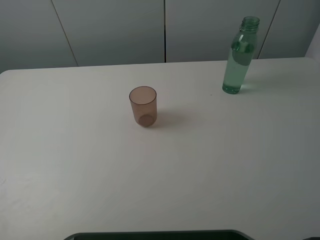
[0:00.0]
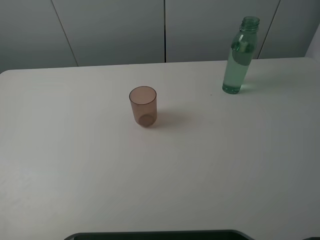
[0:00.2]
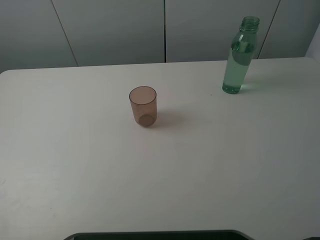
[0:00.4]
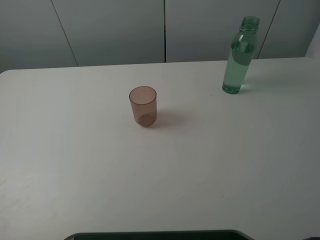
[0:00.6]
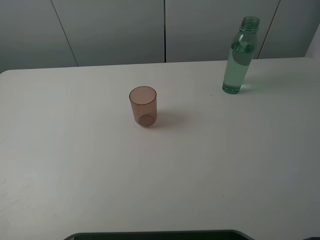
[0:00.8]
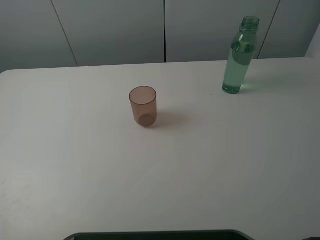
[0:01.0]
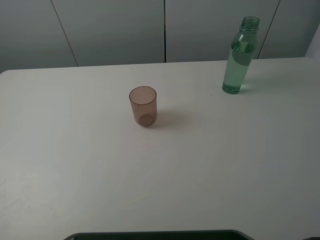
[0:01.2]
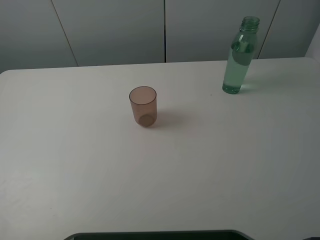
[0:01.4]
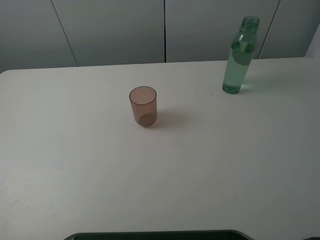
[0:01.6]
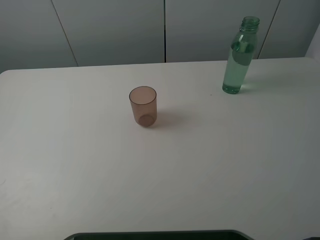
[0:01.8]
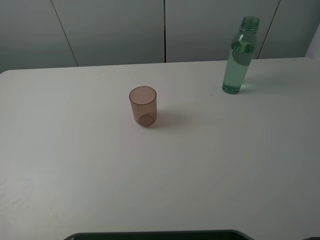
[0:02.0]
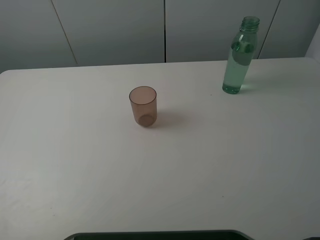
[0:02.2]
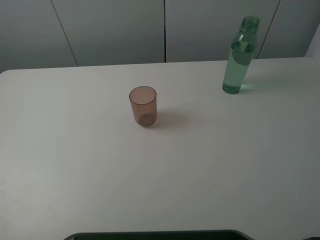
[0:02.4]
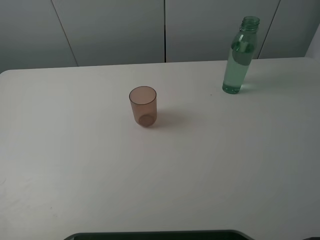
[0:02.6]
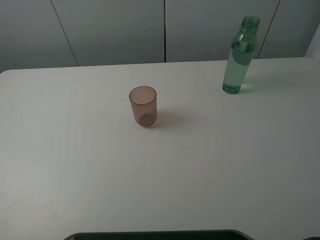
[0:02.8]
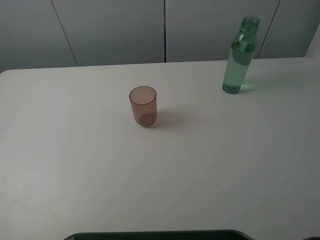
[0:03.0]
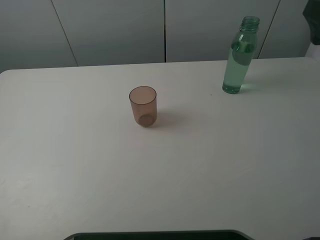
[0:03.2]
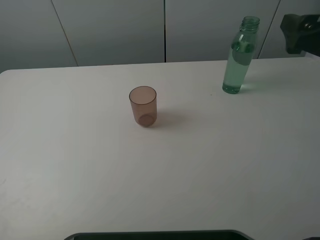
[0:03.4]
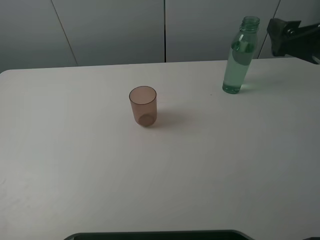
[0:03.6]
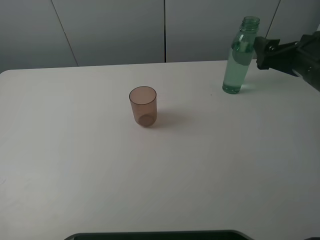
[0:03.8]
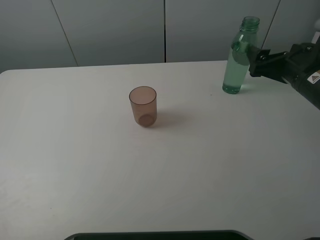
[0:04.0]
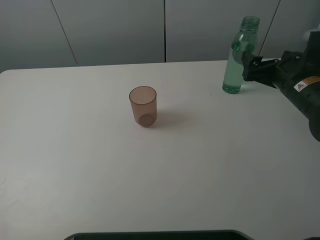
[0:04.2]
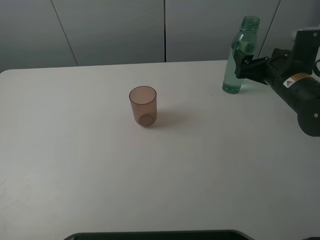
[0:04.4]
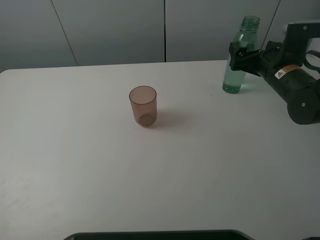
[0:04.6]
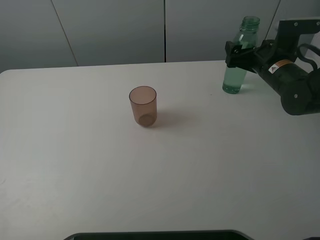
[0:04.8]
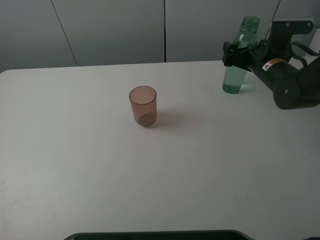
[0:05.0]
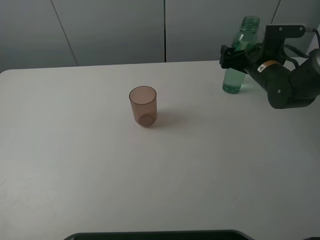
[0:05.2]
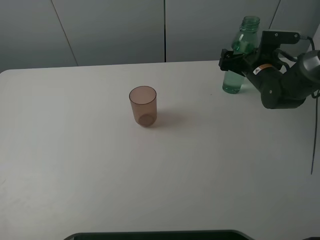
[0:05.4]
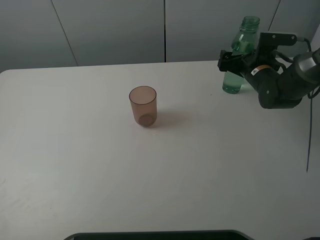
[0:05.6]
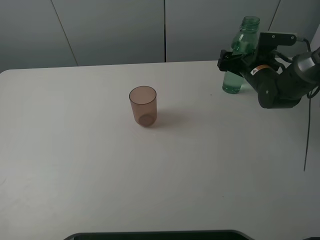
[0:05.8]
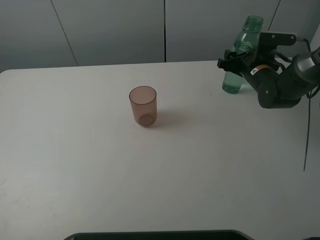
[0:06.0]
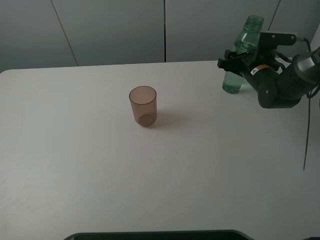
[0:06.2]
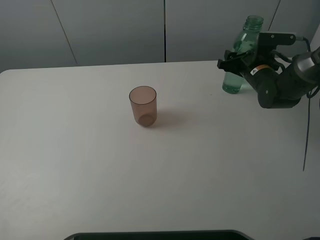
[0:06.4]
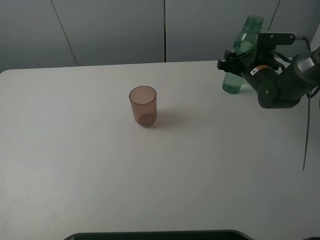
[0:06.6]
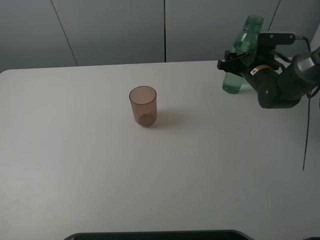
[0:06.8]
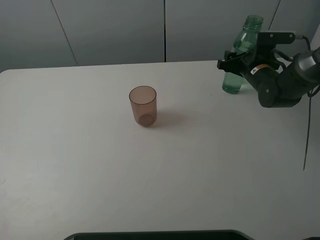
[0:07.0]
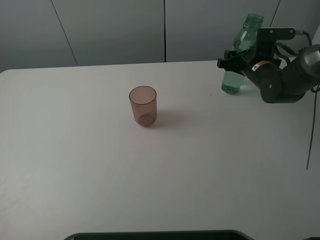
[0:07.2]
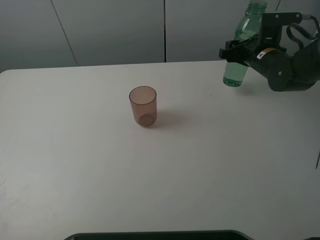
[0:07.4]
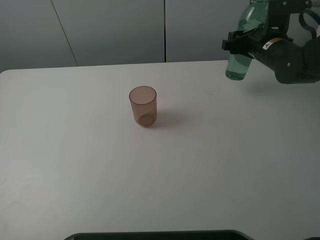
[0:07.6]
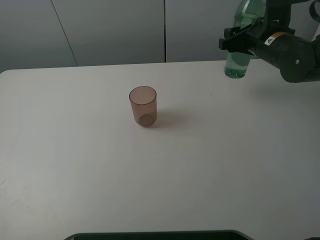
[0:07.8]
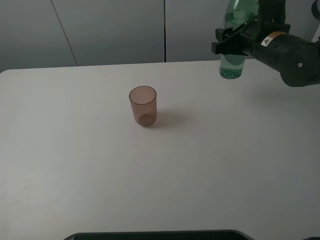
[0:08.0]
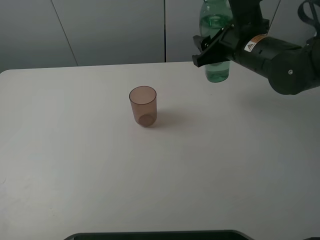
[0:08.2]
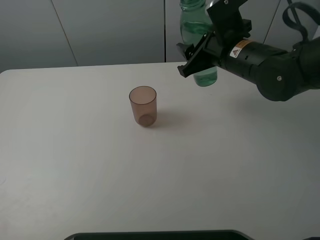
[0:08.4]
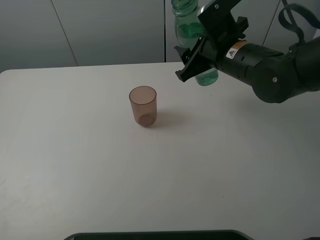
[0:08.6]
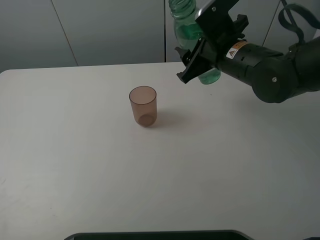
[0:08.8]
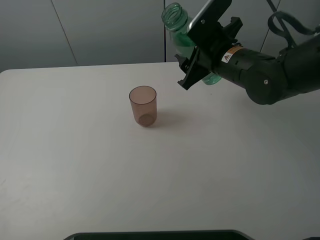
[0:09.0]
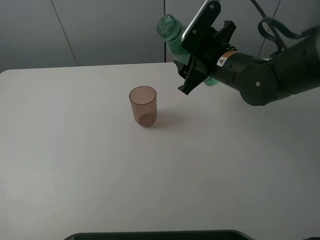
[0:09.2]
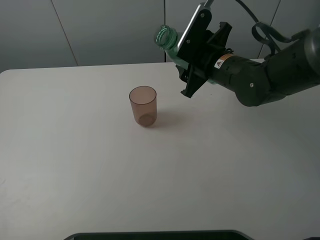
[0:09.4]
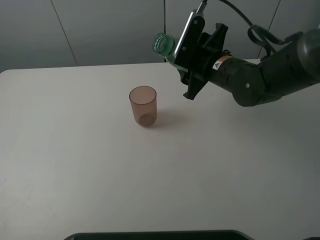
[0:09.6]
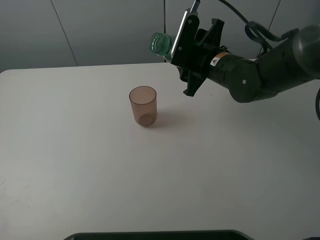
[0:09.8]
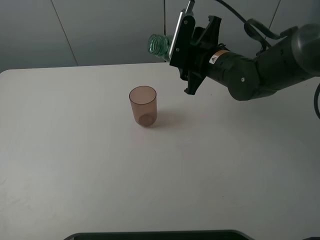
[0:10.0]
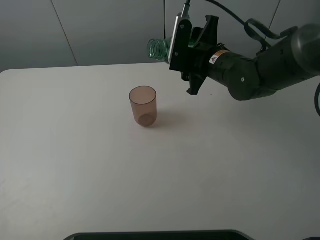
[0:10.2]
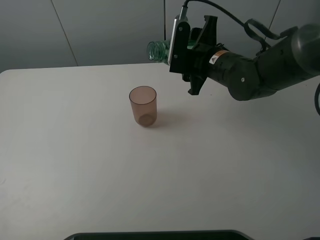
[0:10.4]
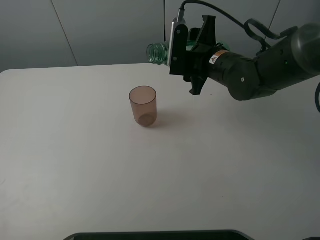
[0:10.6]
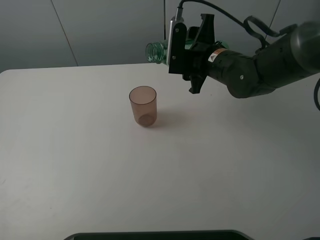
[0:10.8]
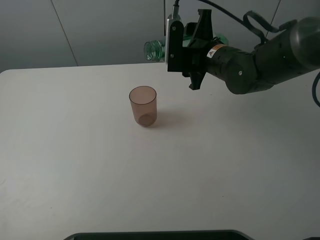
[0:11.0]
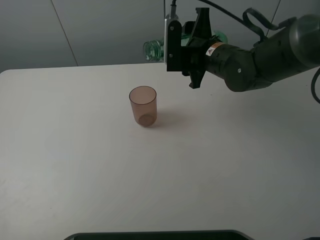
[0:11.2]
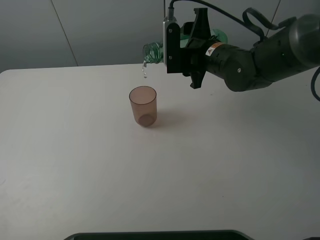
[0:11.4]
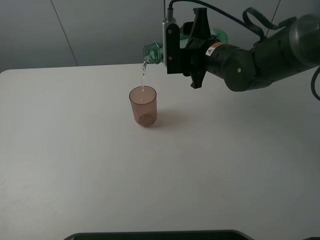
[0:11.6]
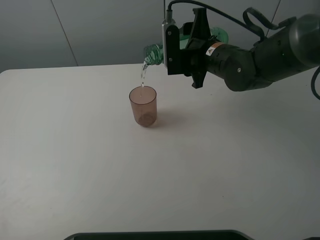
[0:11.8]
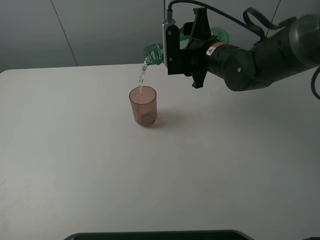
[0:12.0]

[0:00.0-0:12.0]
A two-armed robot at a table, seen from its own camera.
Task of the whole recording: pick up the bottle filled with water and pour it into the pink cup.
Step, 0:00.0 to 0:06.4: Grasp the green bottle with the right gripper.
0:03.0 to 0:04.4: The right gripper moves downward and forward, roughly 20 cm.
0:04.4 to 0:06.0: The right gripper moves forward and downward, about 10 cm, and closes up.
0:06.0 to 0:07.6: The right gripper shifts about 5 cm upward, and closes its fingers.
0:07.6 to 0:09.0: The right gripper is displaced to the left and backward by about 15 cm.
0:10.4 to 0:12.0: There are only small adjustments of the grippers.

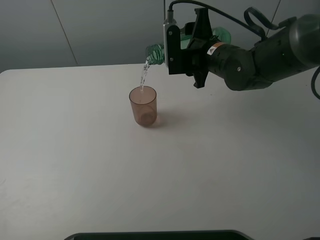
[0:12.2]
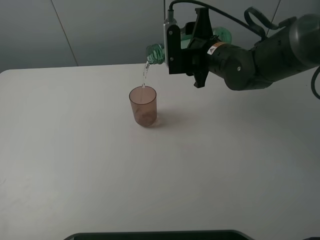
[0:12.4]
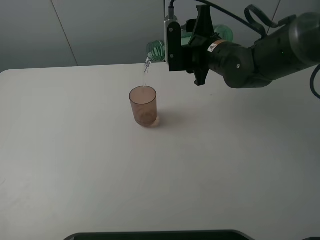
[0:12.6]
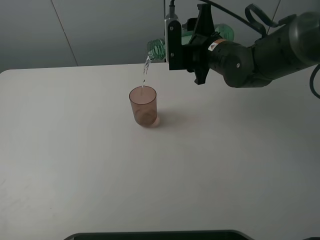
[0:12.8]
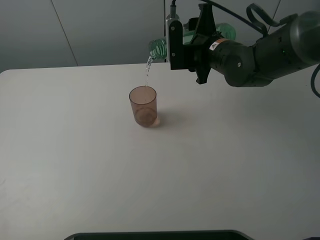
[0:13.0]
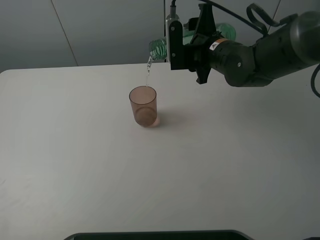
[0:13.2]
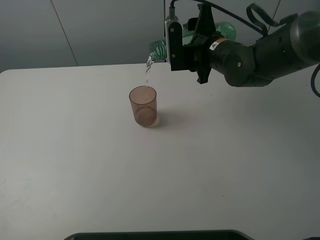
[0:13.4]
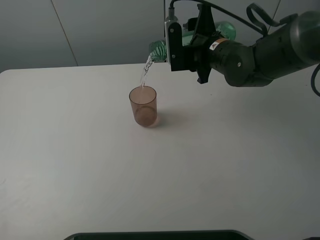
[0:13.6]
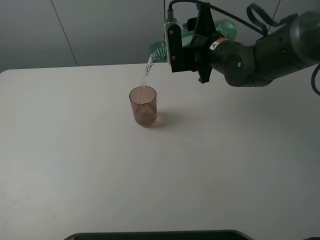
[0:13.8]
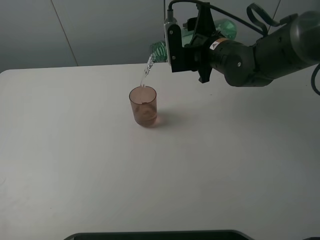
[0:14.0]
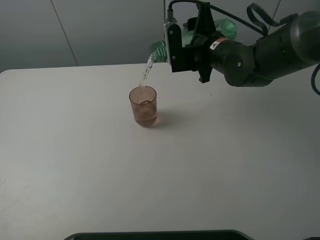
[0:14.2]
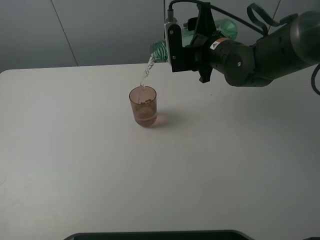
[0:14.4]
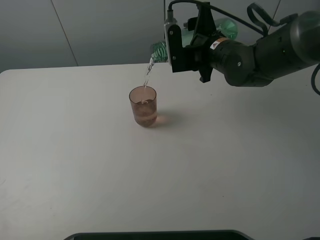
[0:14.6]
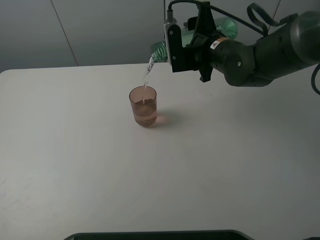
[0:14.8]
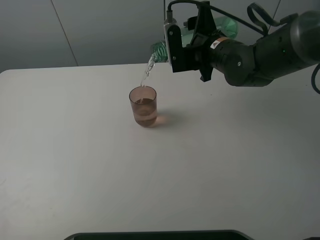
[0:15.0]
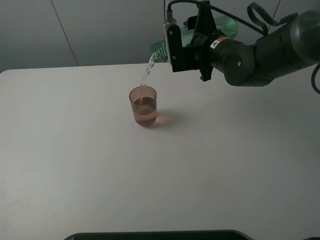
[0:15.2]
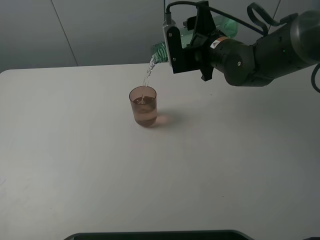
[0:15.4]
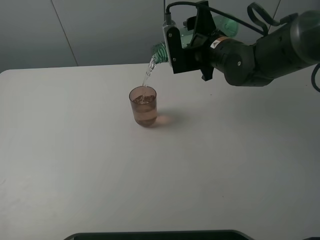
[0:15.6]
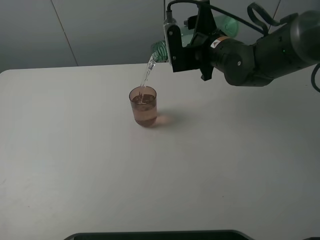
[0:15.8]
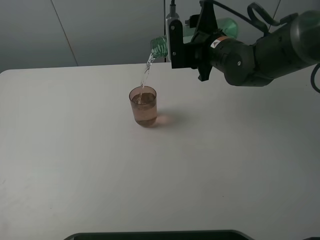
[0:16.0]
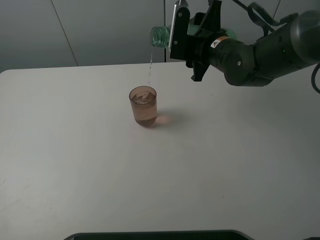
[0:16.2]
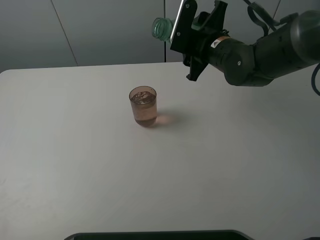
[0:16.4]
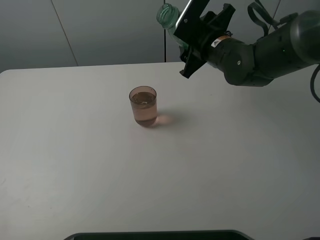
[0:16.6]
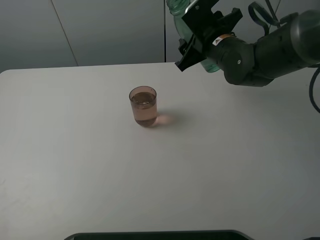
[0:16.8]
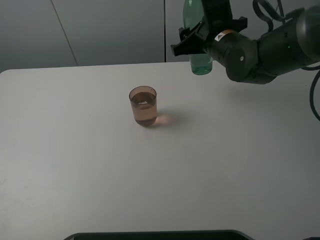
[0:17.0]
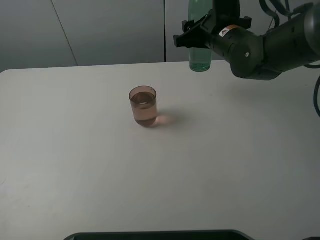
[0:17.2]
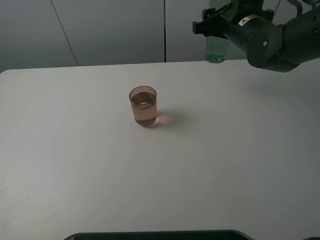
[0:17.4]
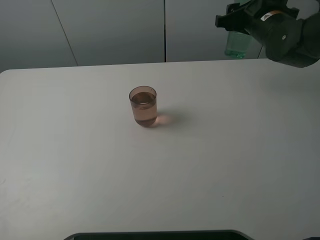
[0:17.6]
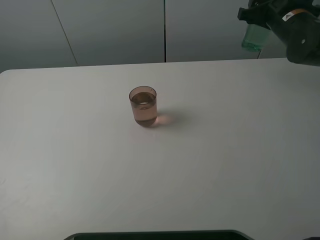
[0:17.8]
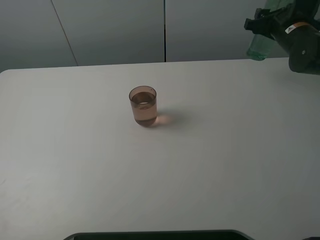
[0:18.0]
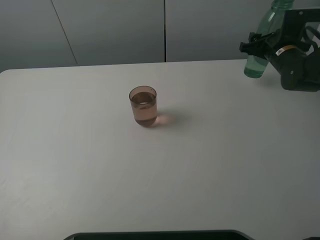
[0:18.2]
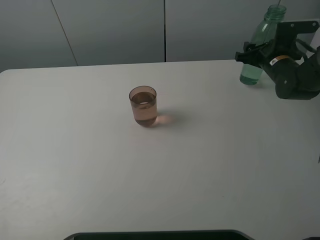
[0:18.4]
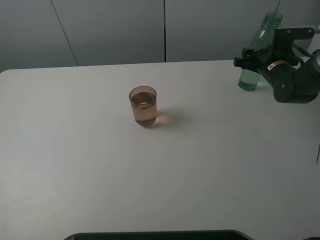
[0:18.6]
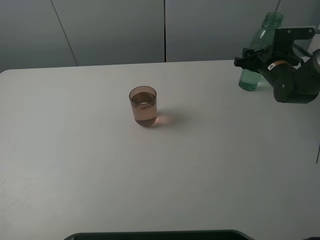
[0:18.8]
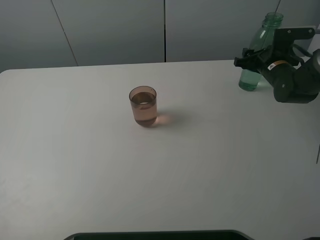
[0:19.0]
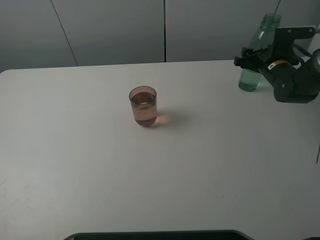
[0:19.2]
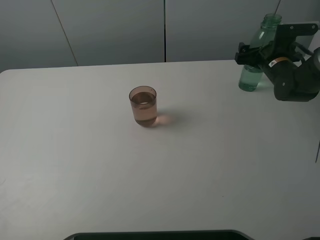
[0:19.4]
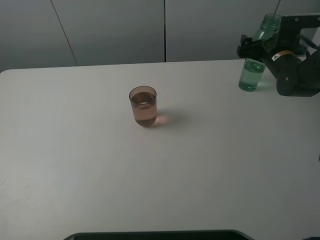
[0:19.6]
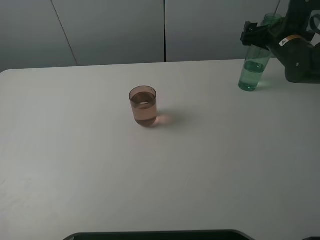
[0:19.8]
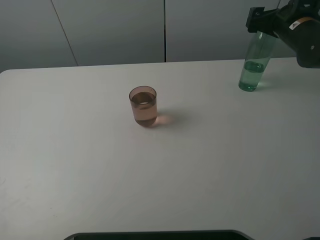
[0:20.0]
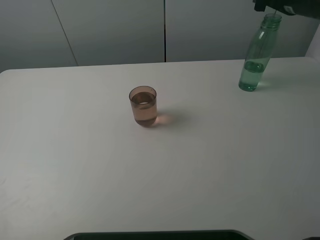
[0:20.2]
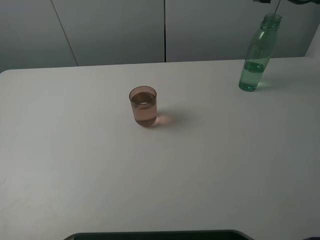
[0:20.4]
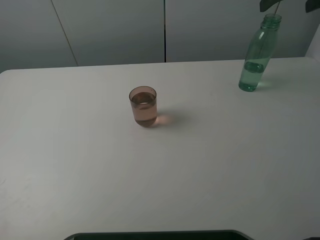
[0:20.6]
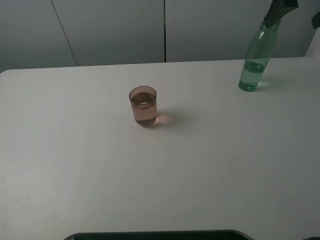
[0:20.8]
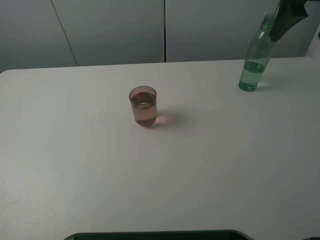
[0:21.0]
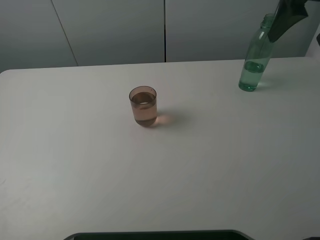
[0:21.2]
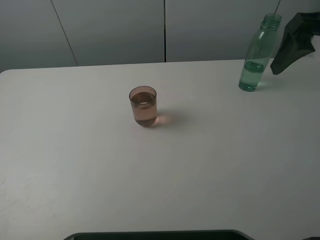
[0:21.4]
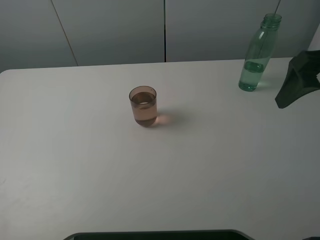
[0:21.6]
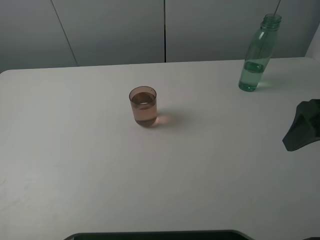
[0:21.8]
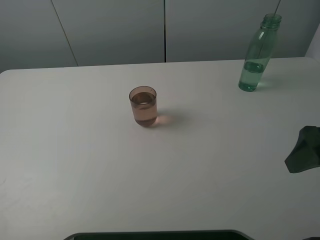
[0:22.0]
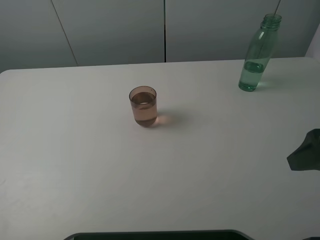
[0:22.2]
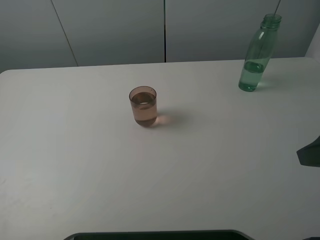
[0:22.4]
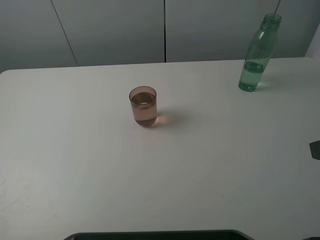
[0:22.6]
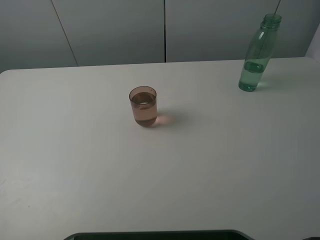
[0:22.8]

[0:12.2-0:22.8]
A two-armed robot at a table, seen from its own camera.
Task of the whole recording: pick up the bottle filled with water and pour it into the pink cup.
Step, 0:12.2 to 0:16.2: Pour water from green bottle to pink cup with the right gripper.
Step, 0:16.4 to 0:19.8: Place the green bottle with the right gripper.
0:12.2 to 0:13.8: Both grippers stay put.
0:13.8 to 0:15.2: Both grippers stay put.
0:16.8 to 0:18.2: The right gripper travels to the right by approximately 15 cm.
0:18.2 to 0:19.8: The right gripper opens up.
0:19.8 to 0:21.2: The right gripper moves upward and backward, roughly 20 cm.
0:21.2 to 0:22.8: The right gripper moves backward, some 25 cm.
